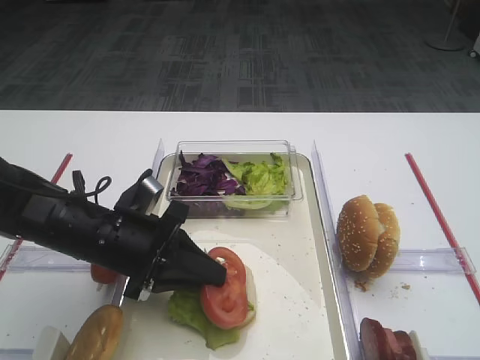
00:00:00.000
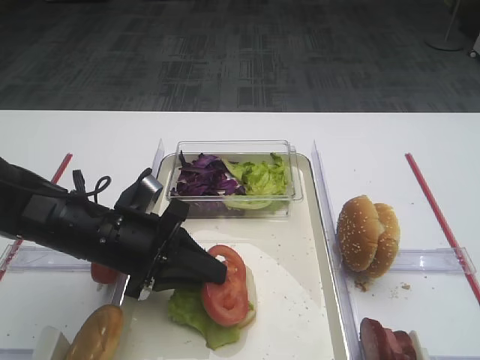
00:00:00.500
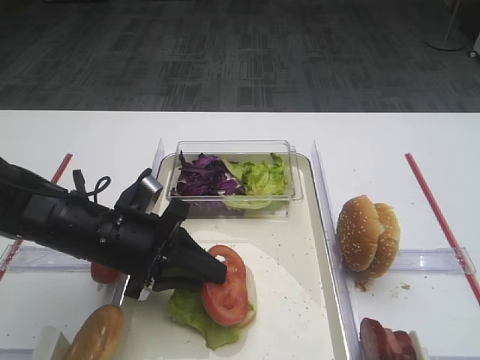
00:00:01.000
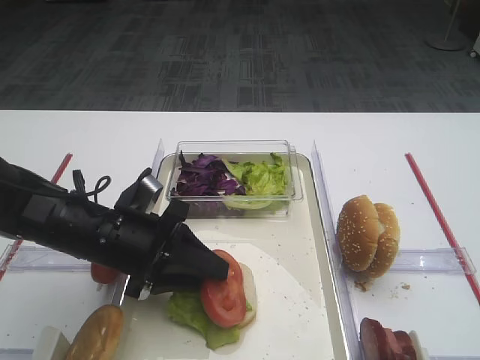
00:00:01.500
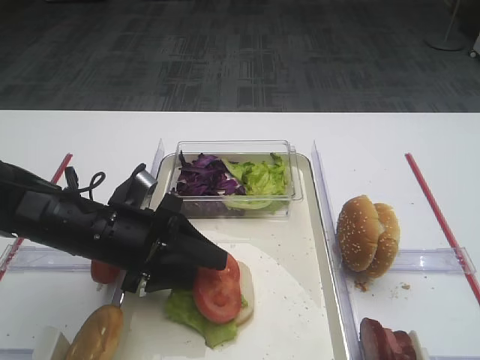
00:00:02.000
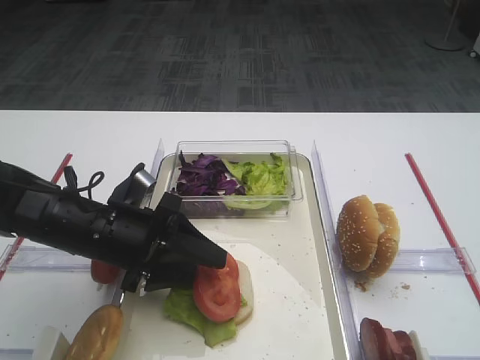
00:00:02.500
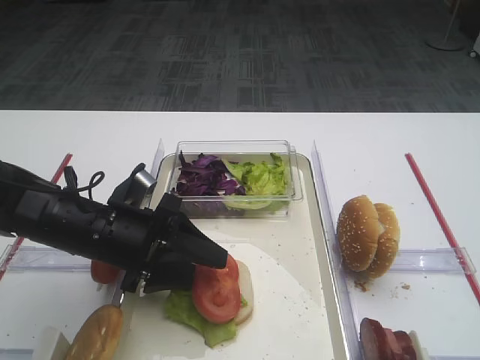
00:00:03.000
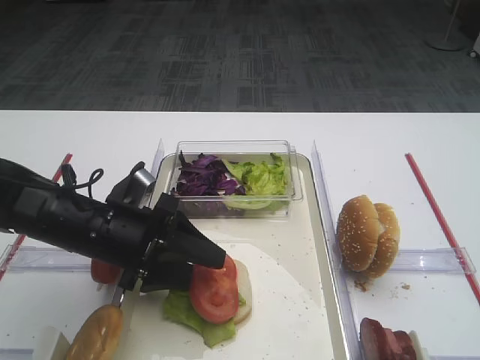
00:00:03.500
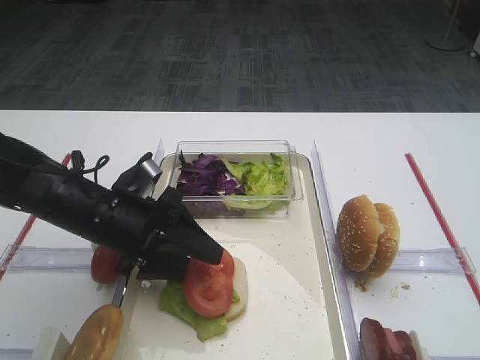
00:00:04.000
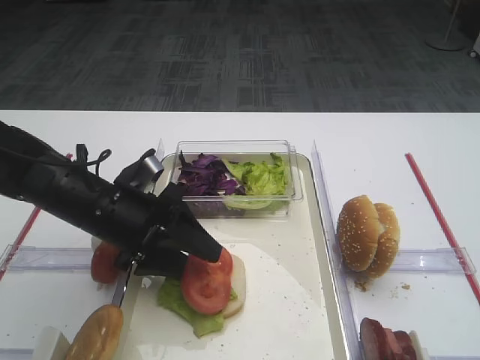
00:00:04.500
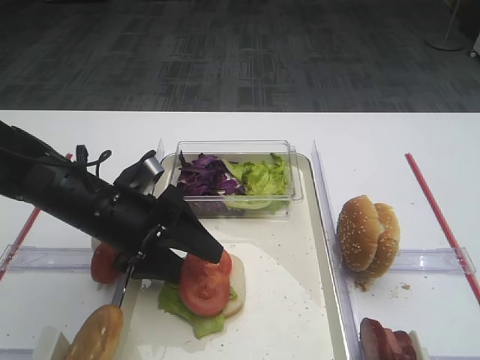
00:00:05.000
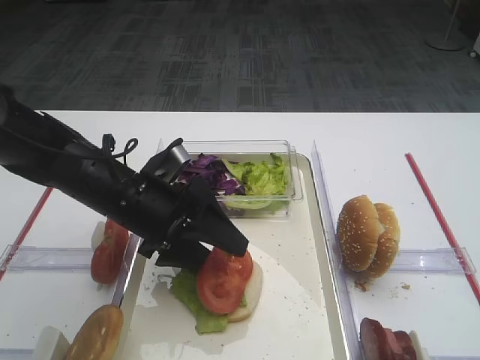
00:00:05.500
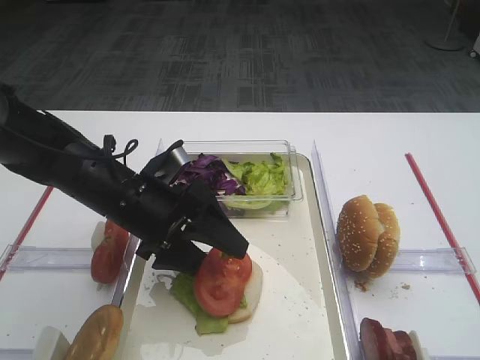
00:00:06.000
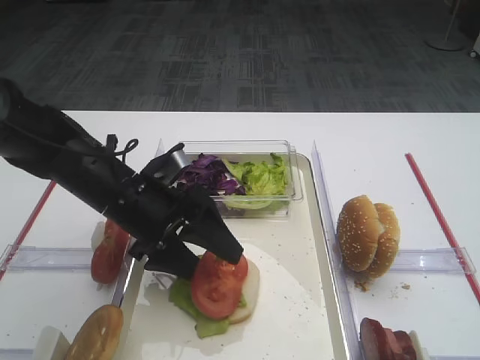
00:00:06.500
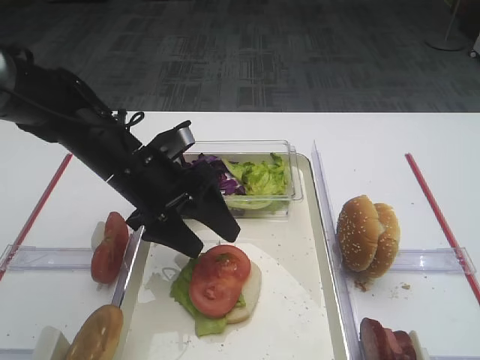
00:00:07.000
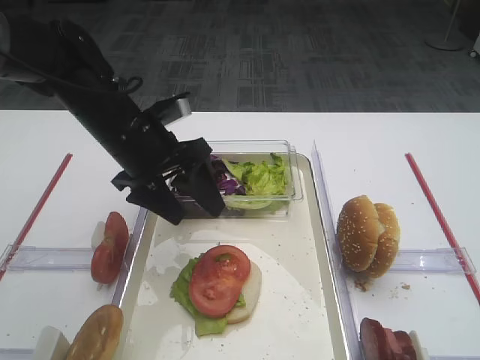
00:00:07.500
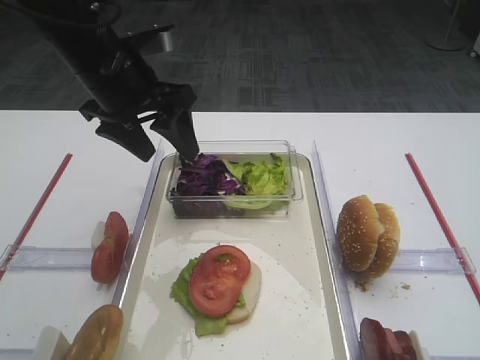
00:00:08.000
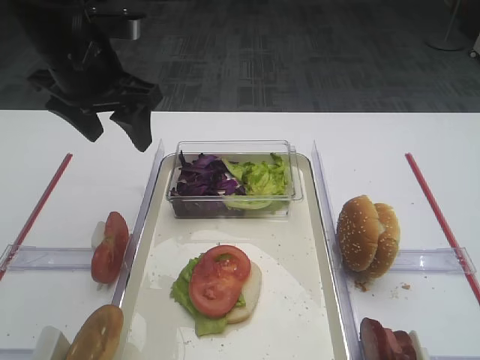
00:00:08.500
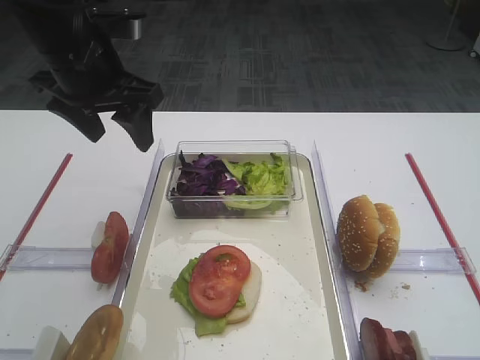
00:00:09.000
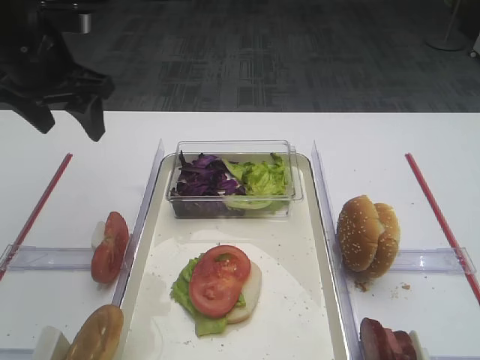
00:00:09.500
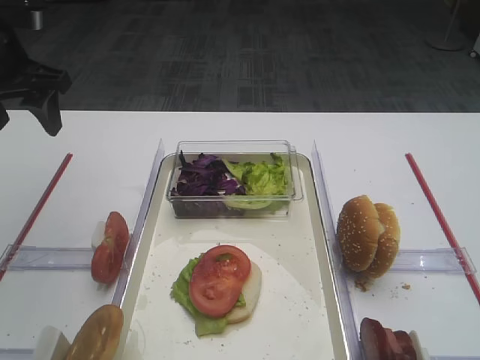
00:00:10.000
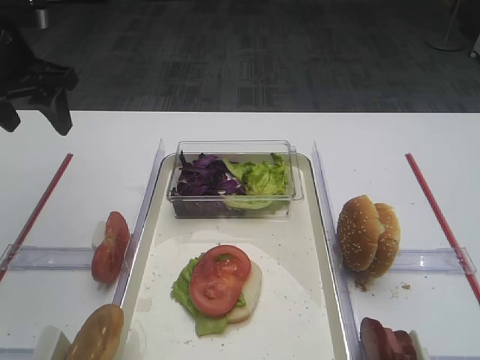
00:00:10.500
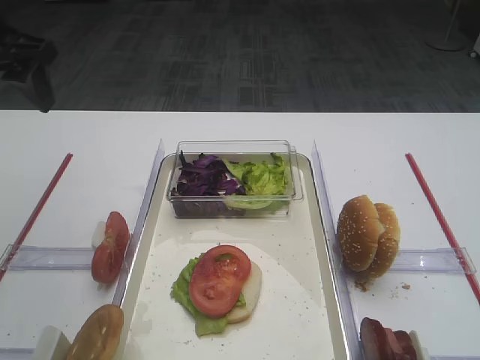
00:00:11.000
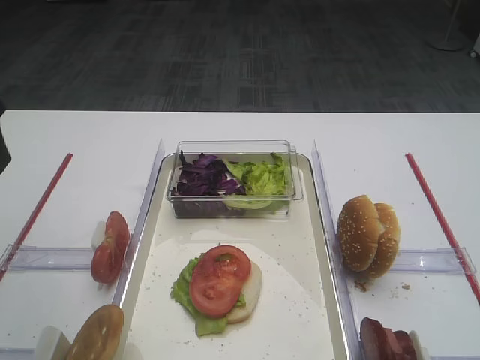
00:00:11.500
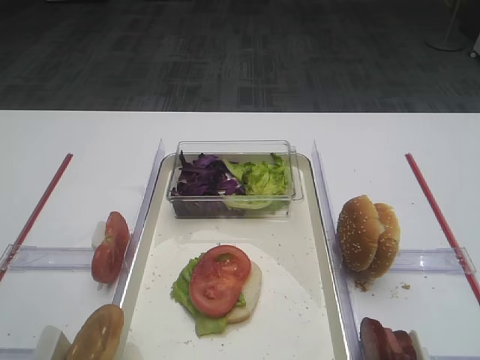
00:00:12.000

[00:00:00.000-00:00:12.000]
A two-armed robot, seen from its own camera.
Step, 00:00:00.000 to 00:00:07.000: Place the tomato slice on the lettuce leaf with the left gripper.
00:00:00.000 to 00:00:02.000: The left gripper opens.
00:00:02.000 to 00:00:06.000: The grippers make only small movements.
00:00:06.000 to 00:00:08.000: The left gripper is displaced upward and forward by approximately 15 cm.
00:00:08.000 to 00:00:10.000: The left gripper shifts roughly 15 cm to the left.
00:00:10.000 to 00:00:12.000: The left gripper moves backward, approximately 20 cm.

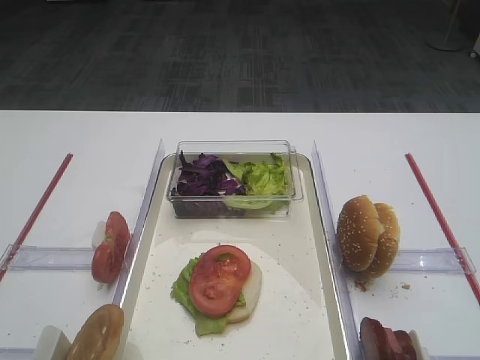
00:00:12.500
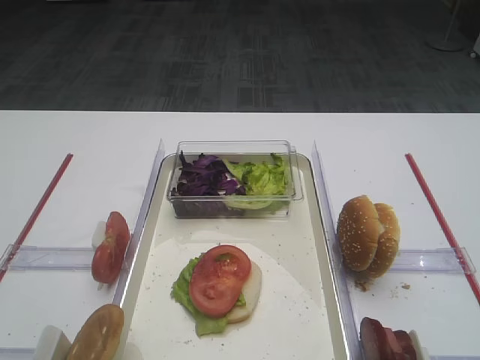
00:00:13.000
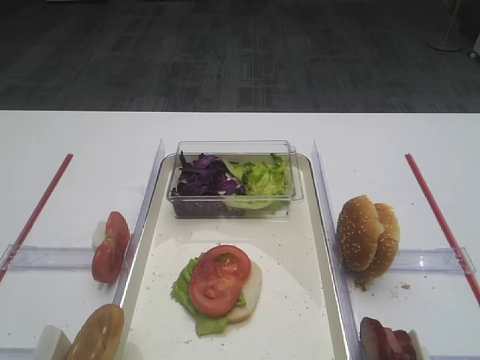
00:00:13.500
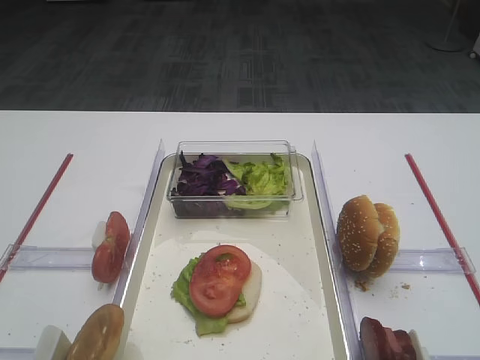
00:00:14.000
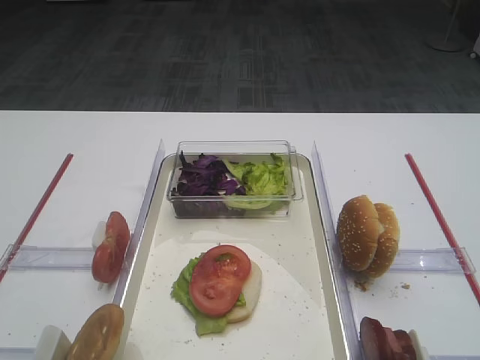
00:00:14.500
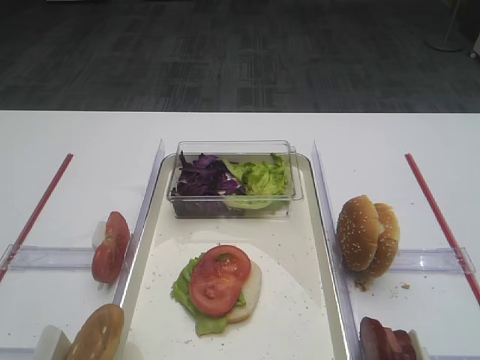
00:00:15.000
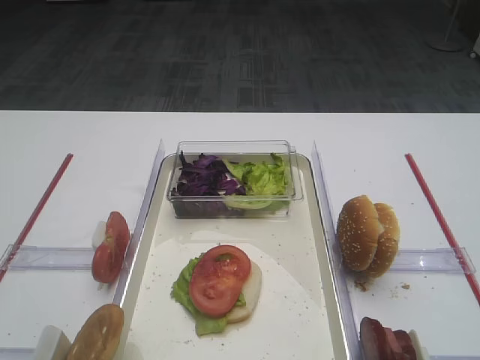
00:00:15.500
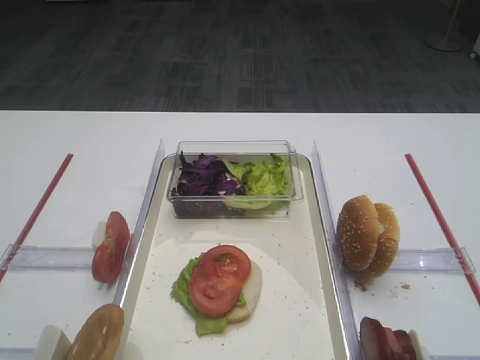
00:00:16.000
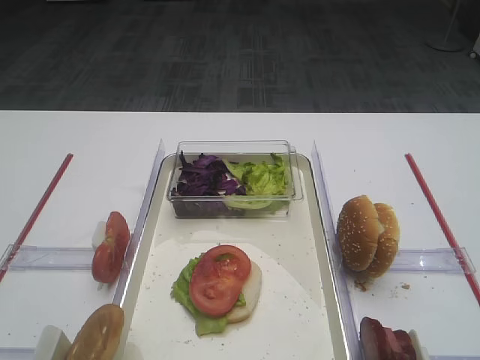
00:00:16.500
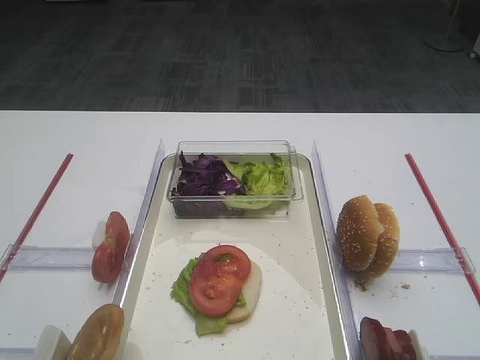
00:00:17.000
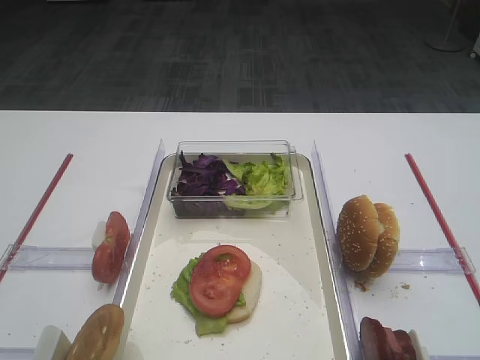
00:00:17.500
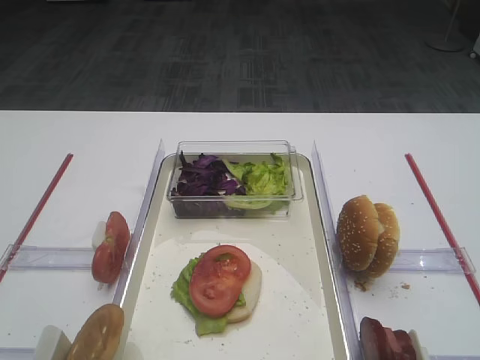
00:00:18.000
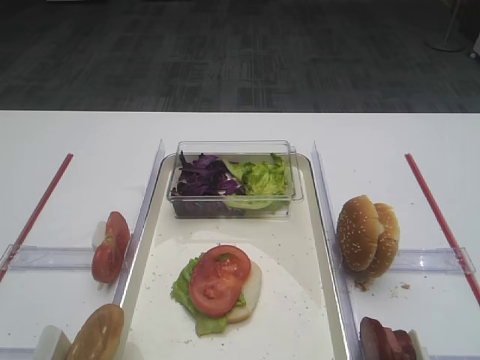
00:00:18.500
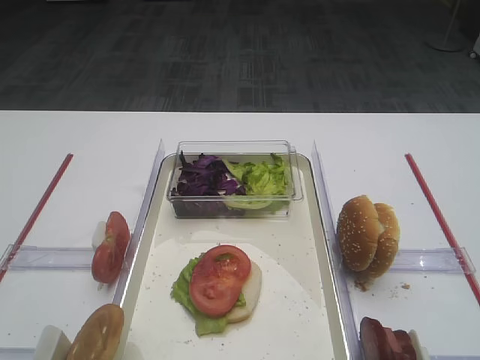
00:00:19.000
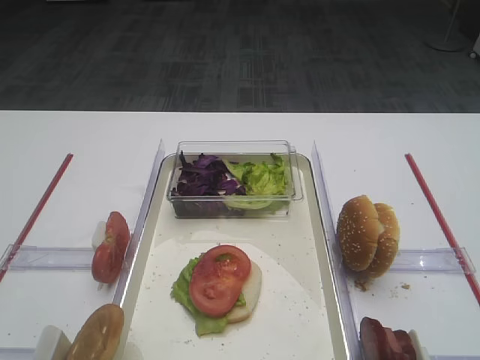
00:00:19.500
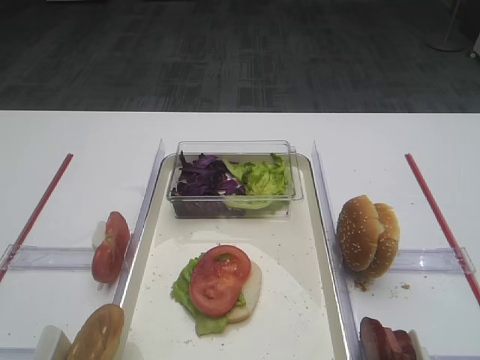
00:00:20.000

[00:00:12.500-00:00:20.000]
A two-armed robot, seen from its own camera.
00:00:14.500 to 00:00:20.000: Both grippers stay about where they are.
